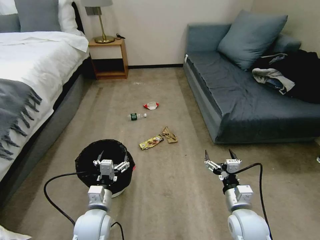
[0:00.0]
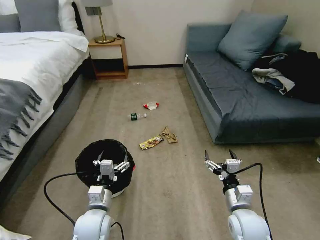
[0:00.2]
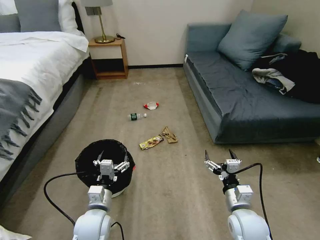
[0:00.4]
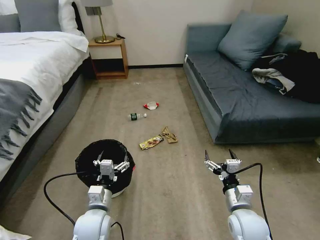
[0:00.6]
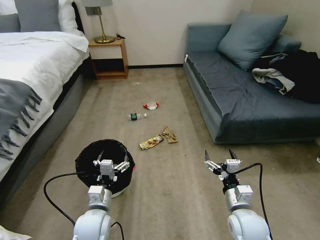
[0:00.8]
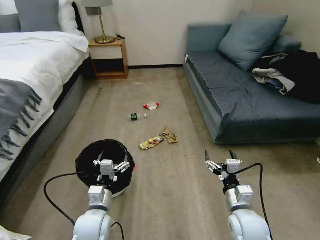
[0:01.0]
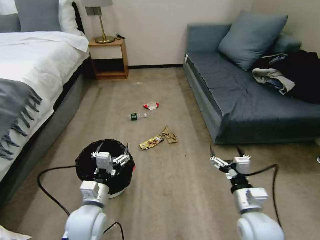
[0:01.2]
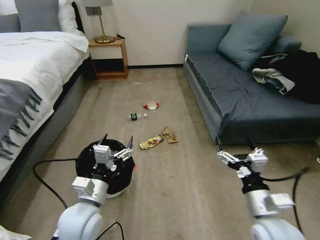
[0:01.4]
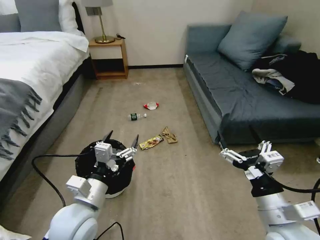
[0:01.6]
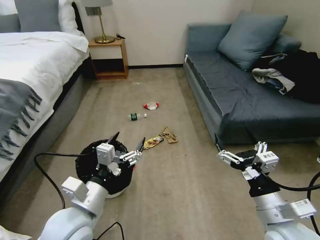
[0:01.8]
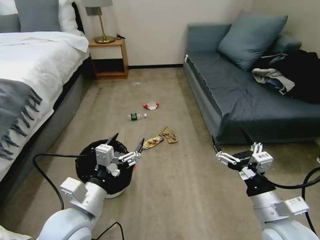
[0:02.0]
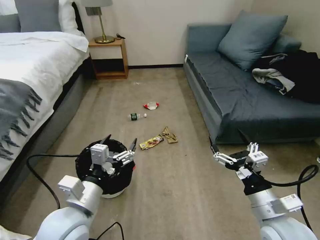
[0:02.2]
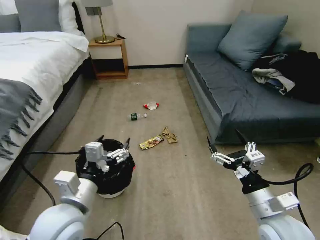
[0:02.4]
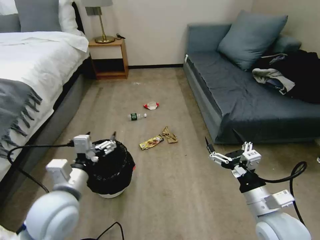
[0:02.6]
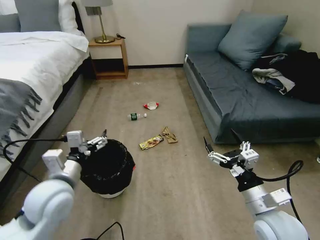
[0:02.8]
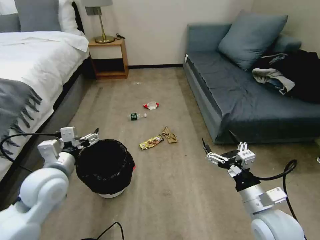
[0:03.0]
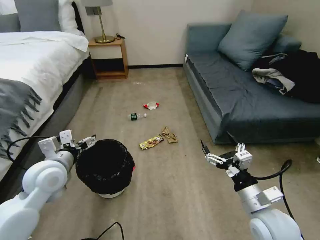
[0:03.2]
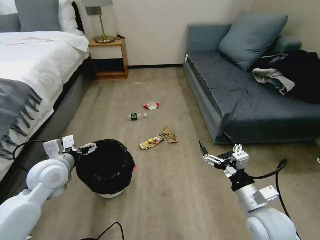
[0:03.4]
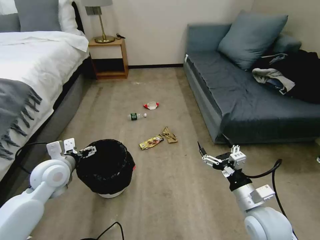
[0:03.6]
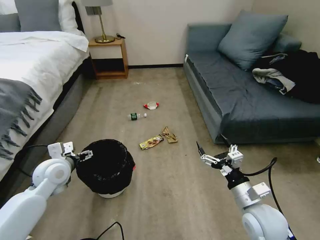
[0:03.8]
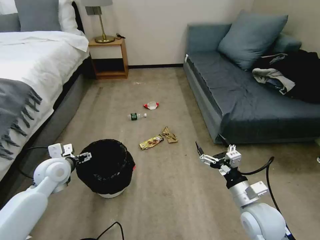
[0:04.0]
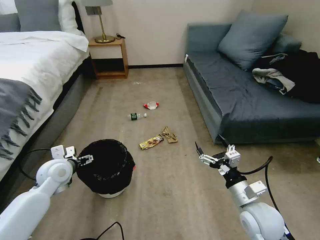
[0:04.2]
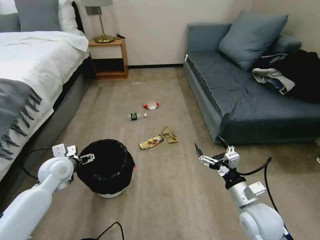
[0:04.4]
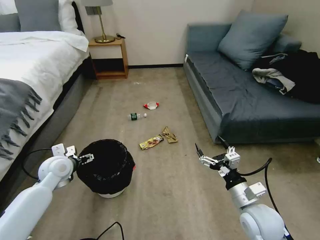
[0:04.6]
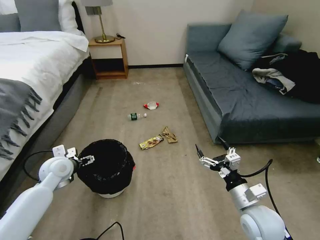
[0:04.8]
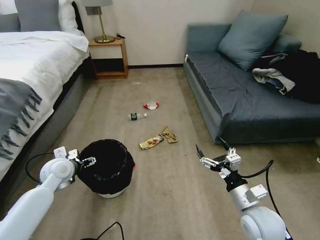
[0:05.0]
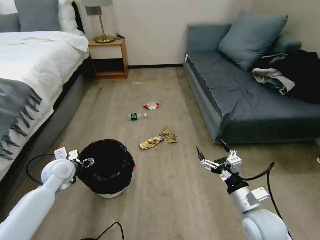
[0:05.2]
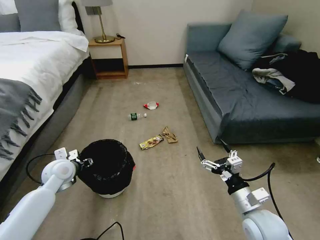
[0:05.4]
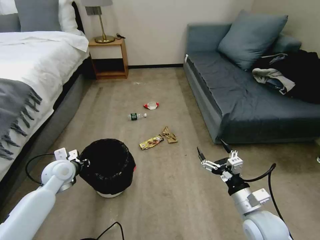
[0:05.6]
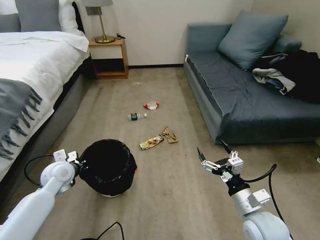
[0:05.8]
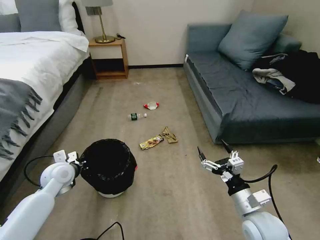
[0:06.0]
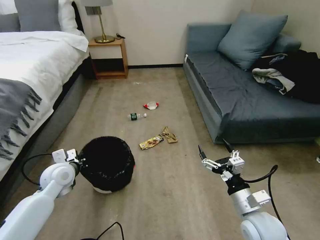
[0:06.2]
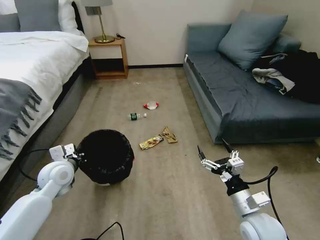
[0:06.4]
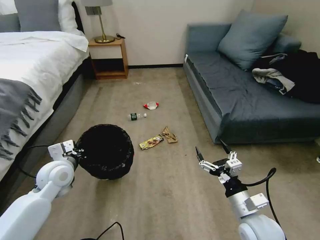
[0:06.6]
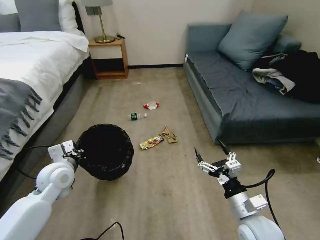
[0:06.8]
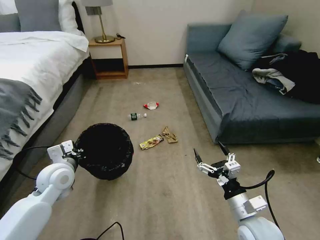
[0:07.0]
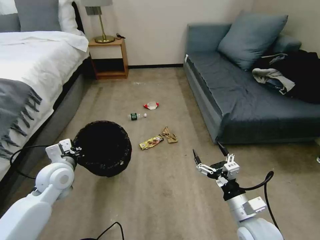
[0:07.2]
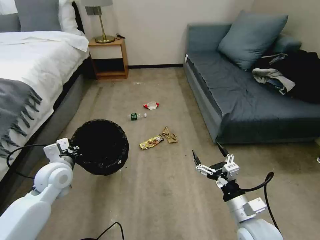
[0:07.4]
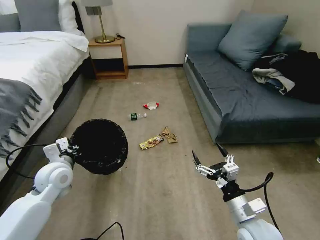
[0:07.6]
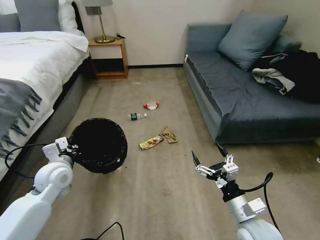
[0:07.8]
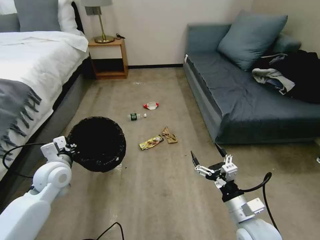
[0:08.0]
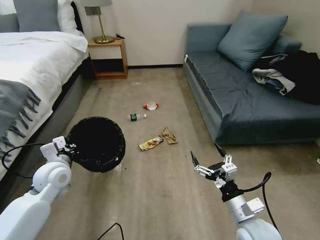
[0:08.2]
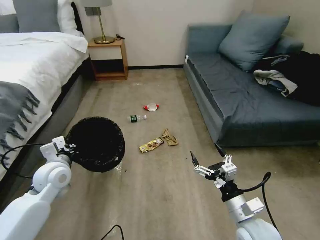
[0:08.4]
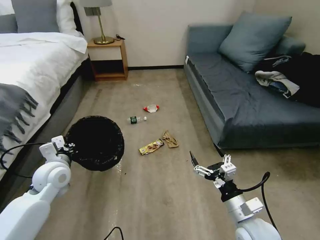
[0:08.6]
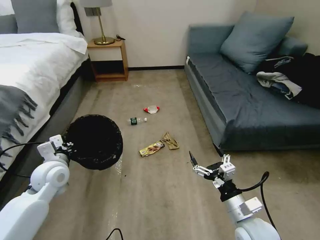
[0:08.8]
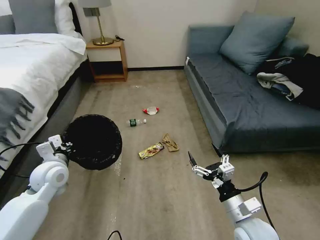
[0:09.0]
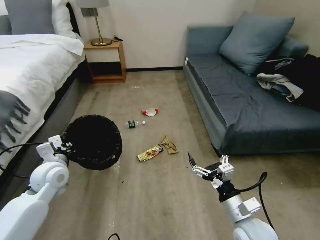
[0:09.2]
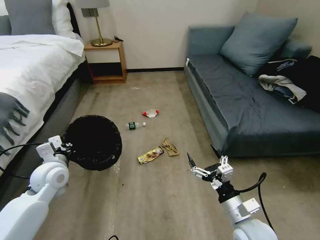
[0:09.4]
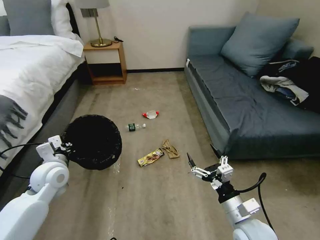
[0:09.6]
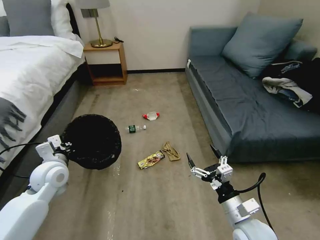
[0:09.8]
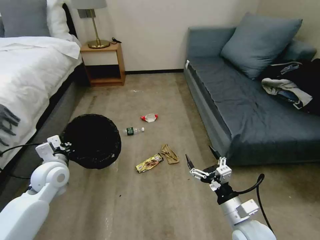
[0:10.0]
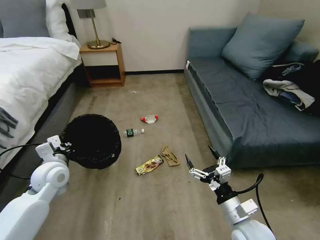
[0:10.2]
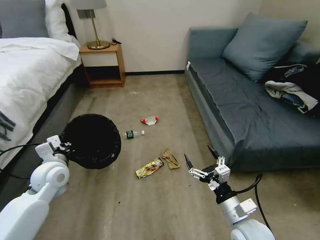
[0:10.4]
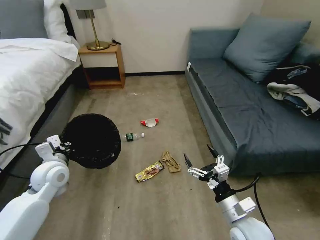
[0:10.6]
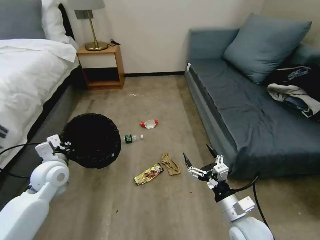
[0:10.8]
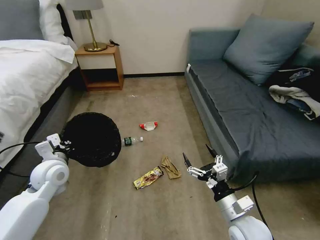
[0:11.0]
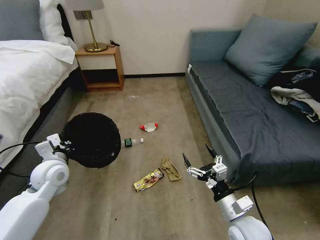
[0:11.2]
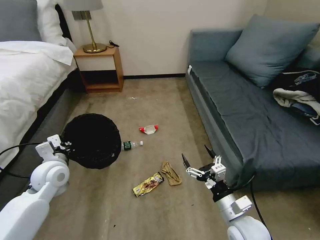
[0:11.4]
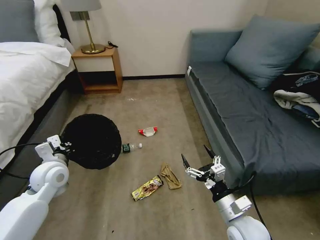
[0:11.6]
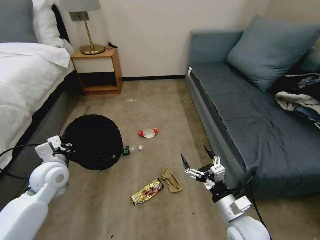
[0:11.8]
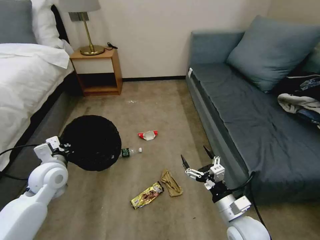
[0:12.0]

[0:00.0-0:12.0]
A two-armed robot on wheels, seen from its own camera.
Task of the whole recording: Pick up the trash bin, then pick up the garbage on the floor and place it into the trash bin.
0:01.6 to 0:03.0: The left gripper moves to the left, forward and upward, approximately 15 cm.
0:03.0 to 0:04.4: The left gripper is displaced forward, downward and to the left by about 10 cm. Meanwhile the right gripper moves roughly 5 cm.
0:04.4 to 0:06.0: The left gripper closes up.
0:06.0 to 0:07.6: The left gripper moves roughly 5 cm.

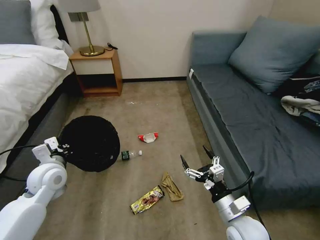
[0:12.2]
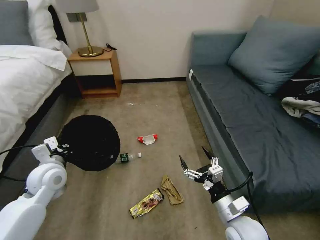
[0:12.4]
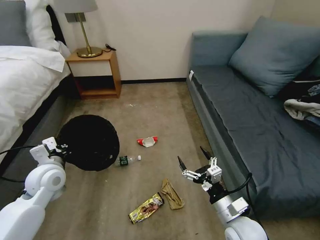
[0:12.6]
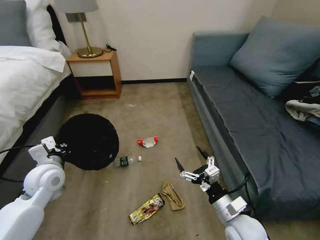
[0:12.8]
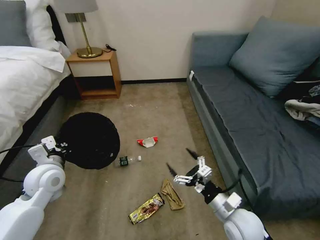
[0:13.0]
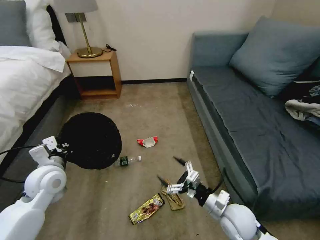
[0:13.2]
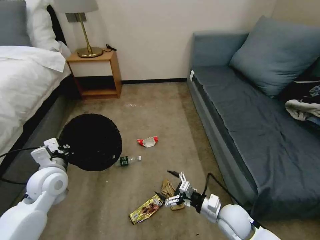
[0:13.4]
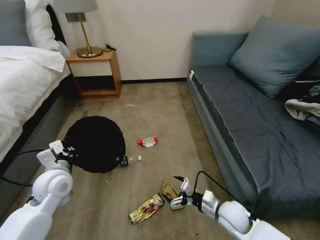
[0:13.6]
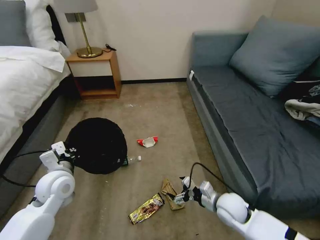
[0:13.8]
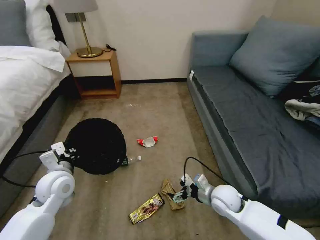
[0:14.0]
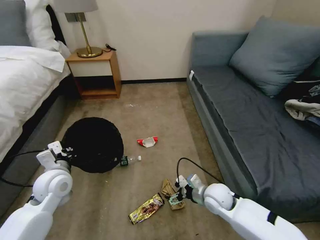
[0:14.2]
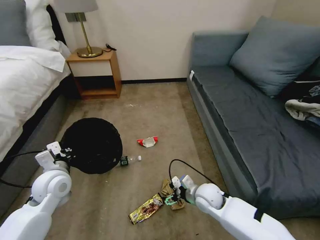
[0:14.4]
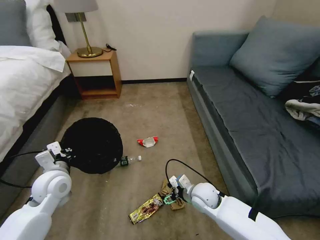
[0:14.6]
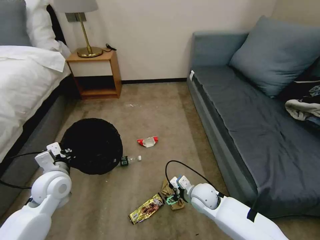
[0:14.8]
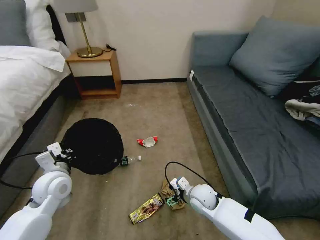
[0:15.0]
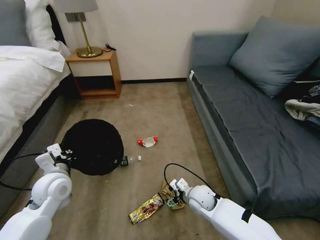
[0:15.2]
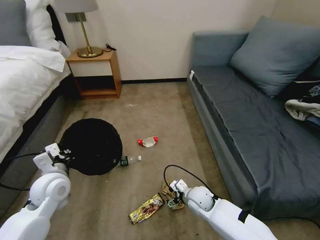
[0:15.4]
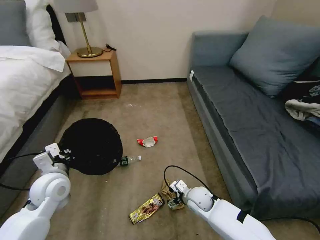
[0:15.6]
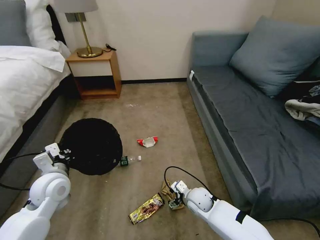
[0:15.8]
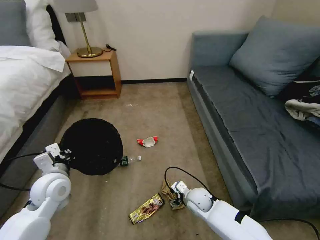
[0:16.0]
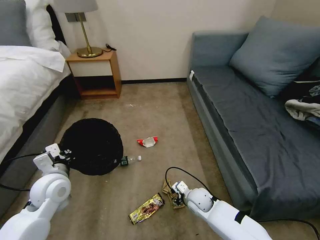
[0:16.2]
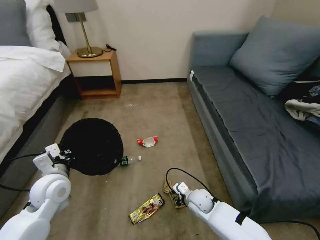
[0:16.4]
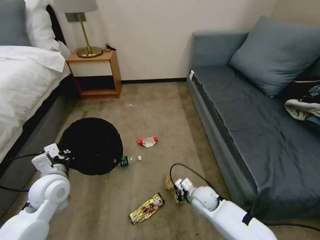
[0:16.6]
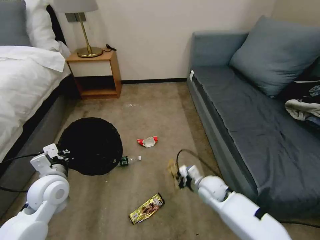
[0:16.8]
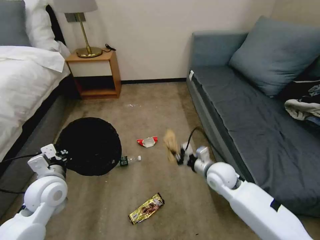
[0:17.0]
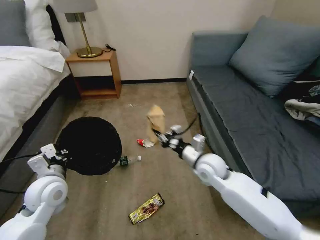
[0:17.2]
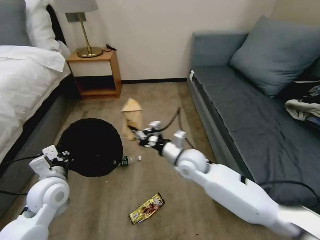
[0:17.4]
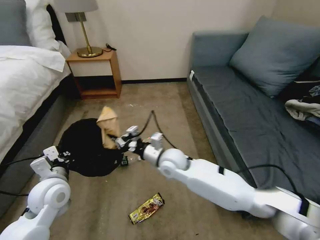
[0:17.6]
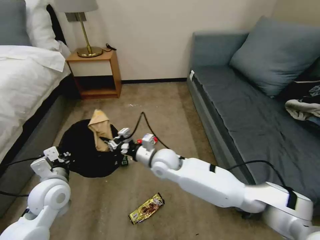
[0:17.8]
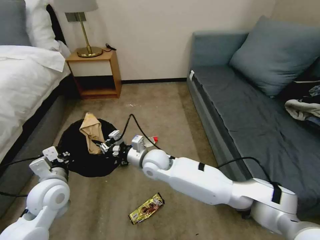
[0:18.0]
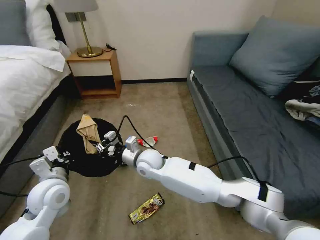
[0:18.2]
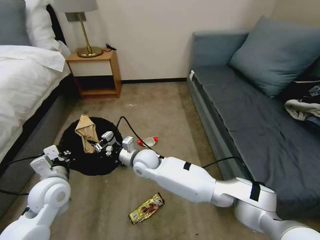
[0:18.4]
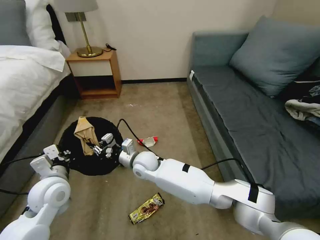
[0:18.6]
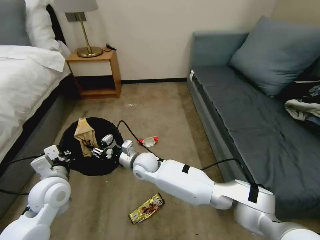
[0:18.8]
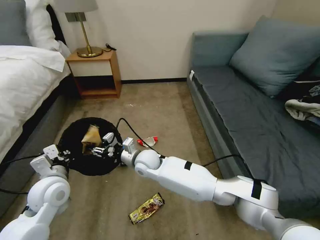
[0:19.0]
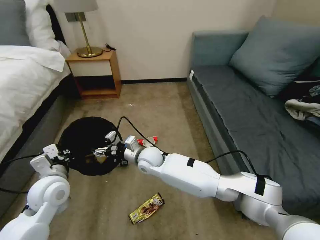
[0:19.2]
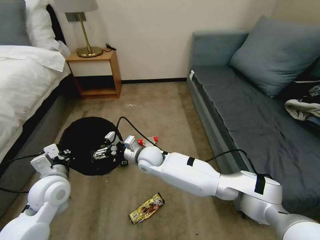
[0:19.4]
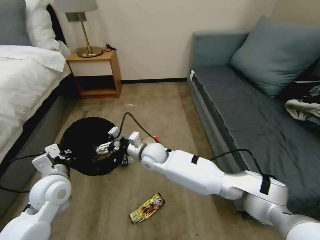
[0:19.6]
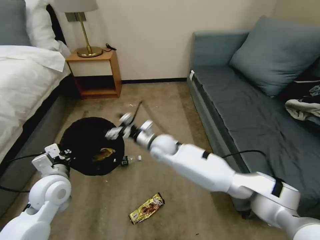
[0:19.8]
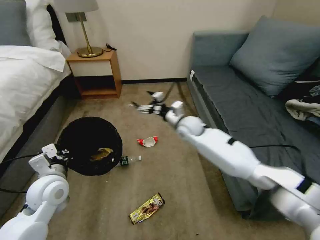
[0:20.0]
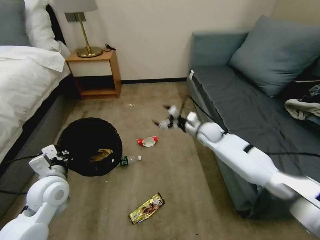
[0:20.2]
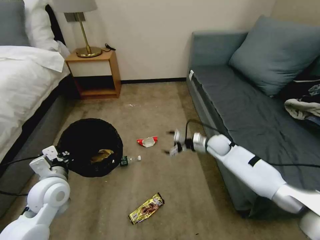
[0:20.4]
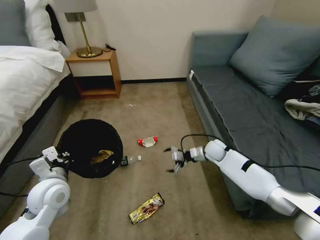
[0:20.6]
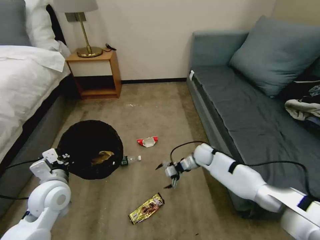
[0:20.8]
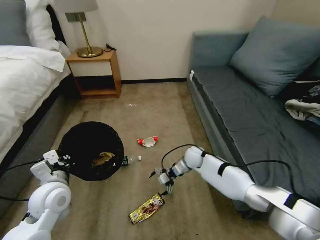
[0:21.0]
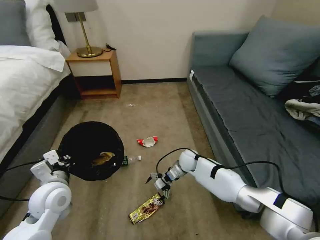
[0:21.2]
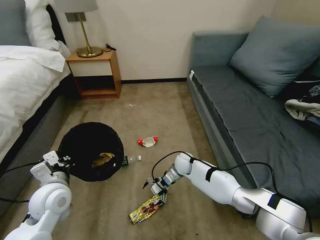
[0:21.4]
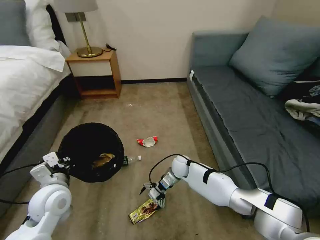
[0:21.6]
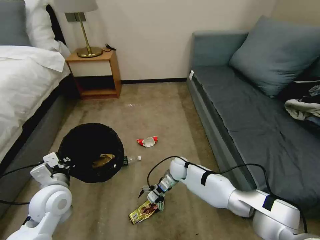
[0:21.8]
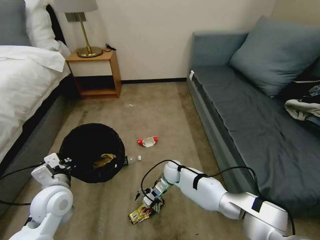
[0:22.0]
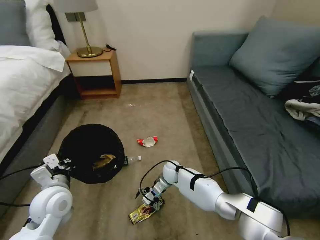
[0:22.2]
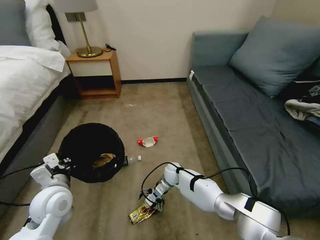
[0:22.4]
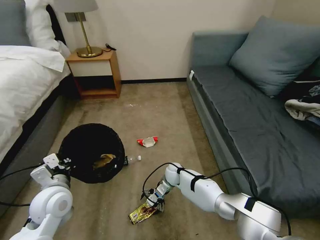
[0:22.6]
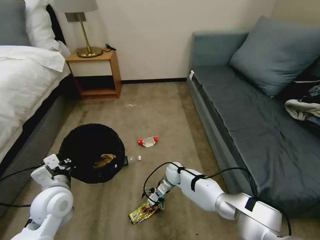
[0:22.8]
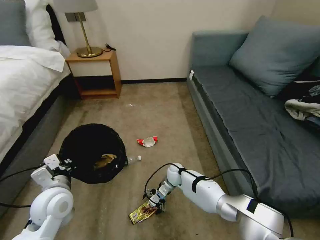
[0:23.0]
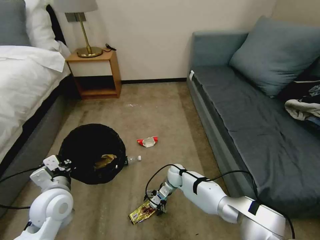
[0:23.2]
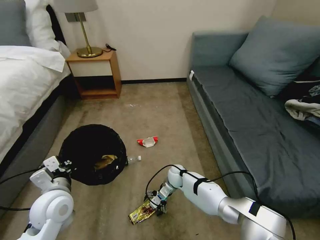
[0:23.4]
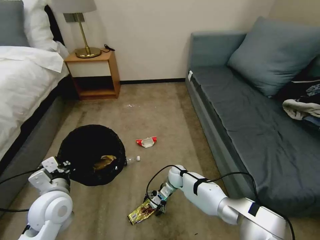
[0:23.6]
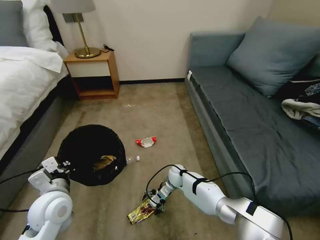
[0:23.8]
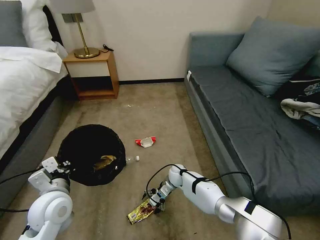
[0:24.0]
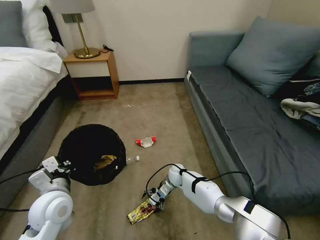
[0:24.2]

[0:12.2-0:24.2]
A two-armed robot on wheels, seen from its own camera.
Task of the whole recording: Pick up the trash bin, then pick up the garbage on the floor and place it into the trash bin.
0:12.2 to 0:13.8: The right gripper moves downward and forward, approximately 10 cm.
0:13.8 to 0:15.2: The right gripper travels to the left and forward by some 10 cm.
0:15.2 to 0:16.6: The right gripper closes its fingers.
0:16.6 to 0:18.2: The right gripper goes some 25 cm to the left and upward.
0:18.2 to 0:19.8: The right gripper is displaced to the right and forward by some 10 cm, and opens up.
0:19.8 to 0:21.2: The right gripper travels downward and to the right by some 20 cm.
0:21.2 to 0:22.6: The right gripper travels to the left and downward by approximately 10 cm.
0:22.6 to 0:24.2: There are only small adjustments of the grippers.
